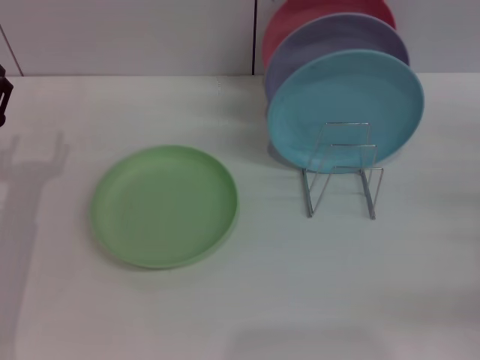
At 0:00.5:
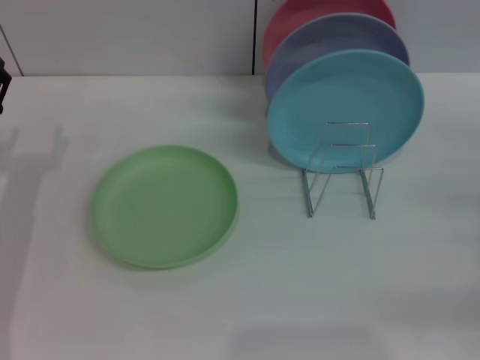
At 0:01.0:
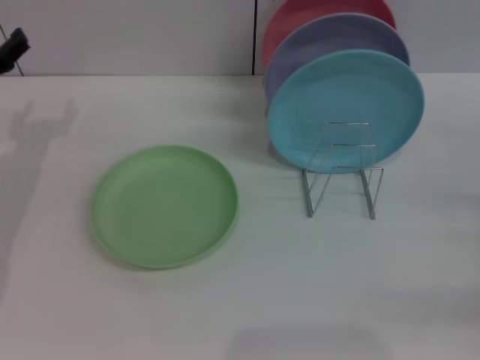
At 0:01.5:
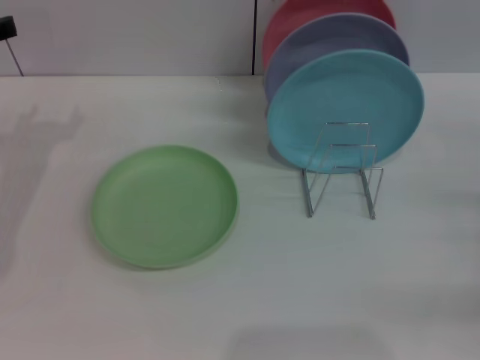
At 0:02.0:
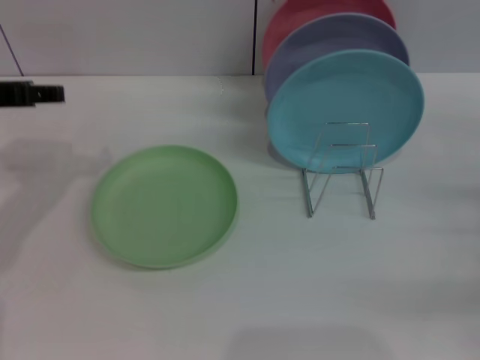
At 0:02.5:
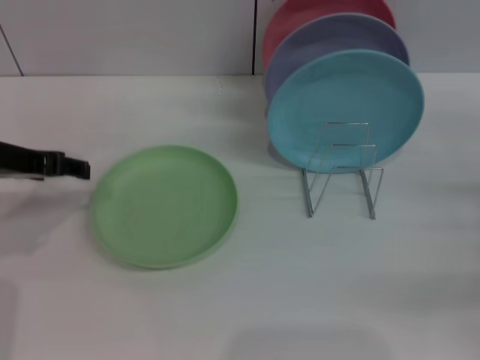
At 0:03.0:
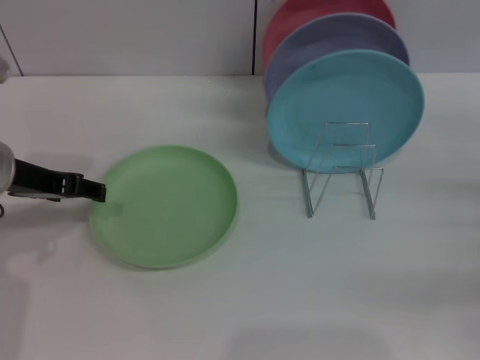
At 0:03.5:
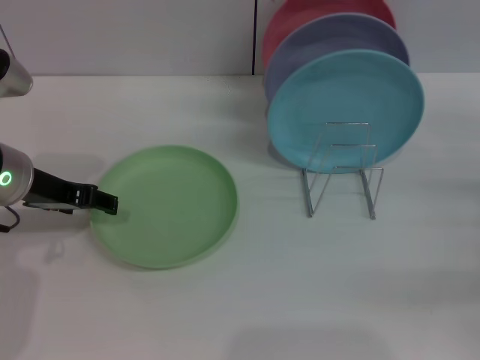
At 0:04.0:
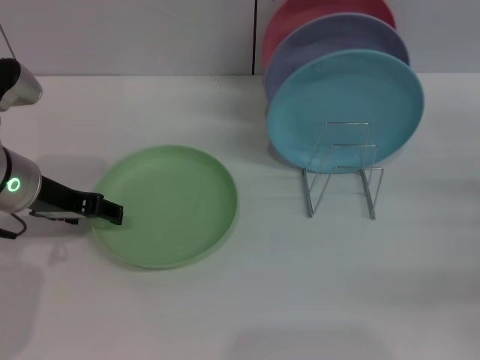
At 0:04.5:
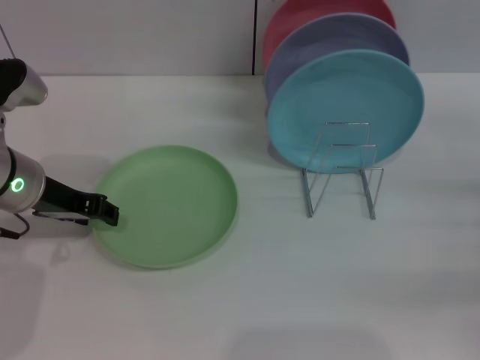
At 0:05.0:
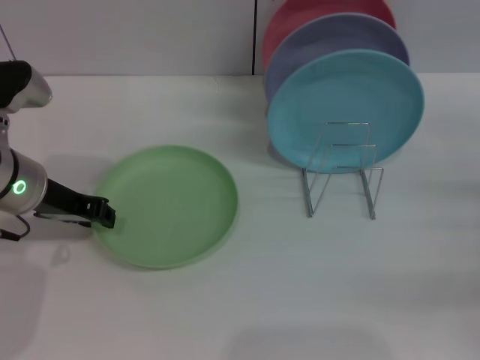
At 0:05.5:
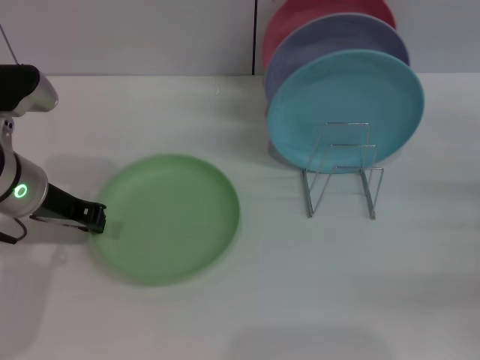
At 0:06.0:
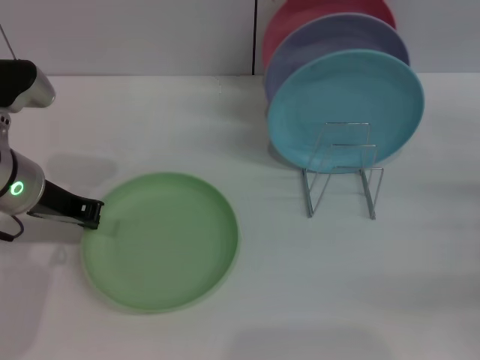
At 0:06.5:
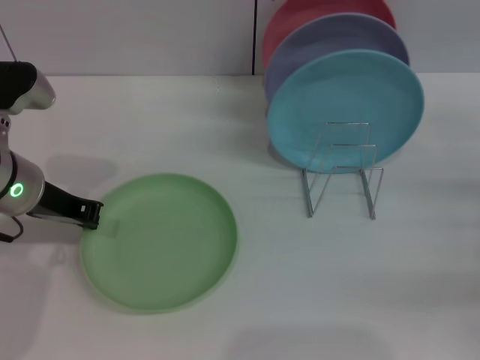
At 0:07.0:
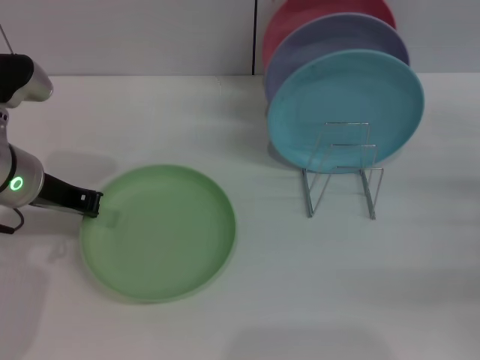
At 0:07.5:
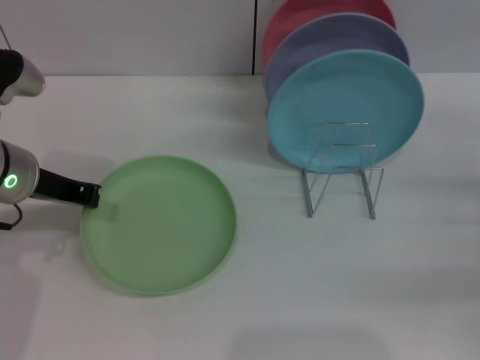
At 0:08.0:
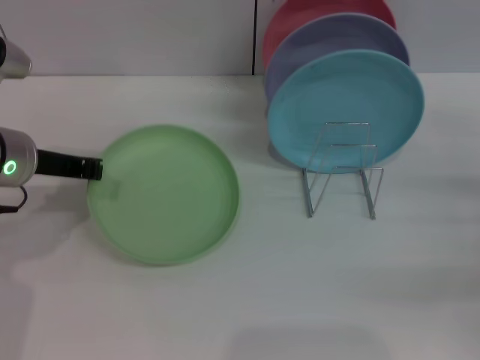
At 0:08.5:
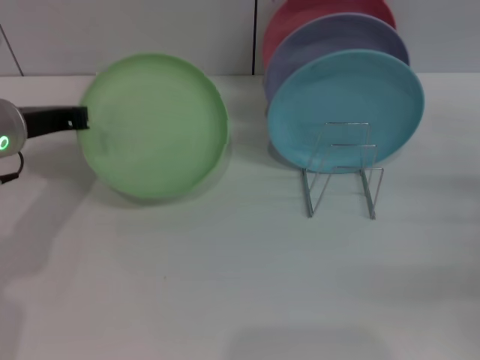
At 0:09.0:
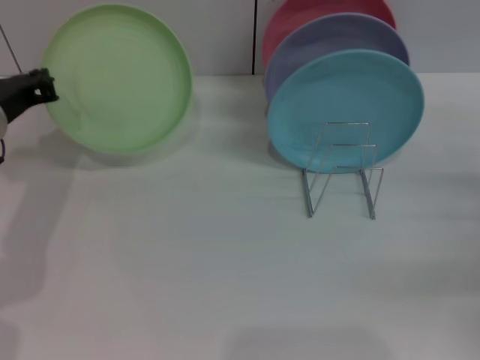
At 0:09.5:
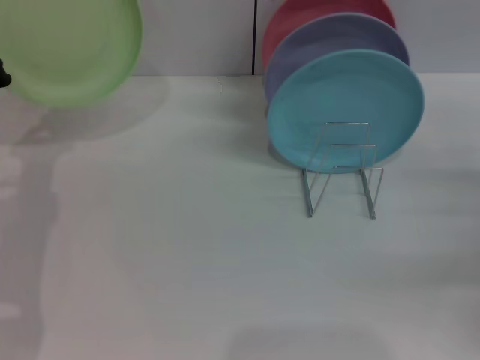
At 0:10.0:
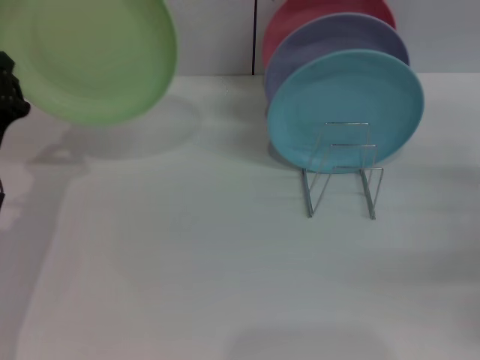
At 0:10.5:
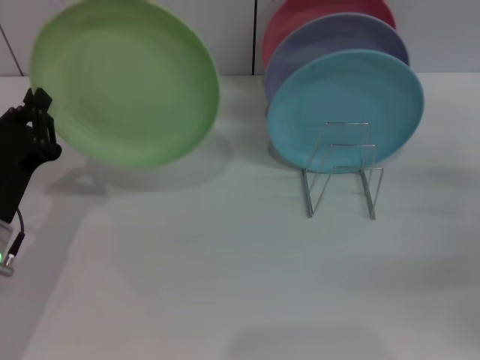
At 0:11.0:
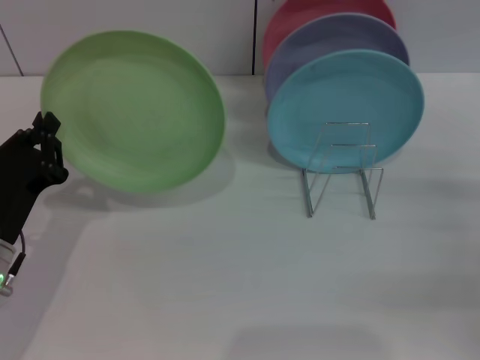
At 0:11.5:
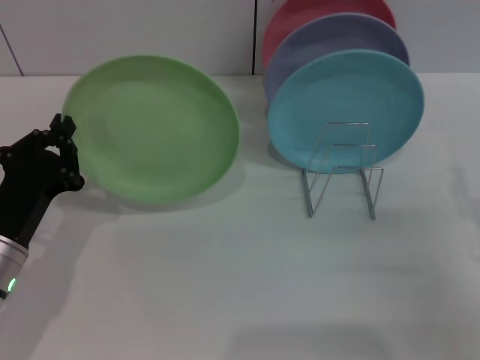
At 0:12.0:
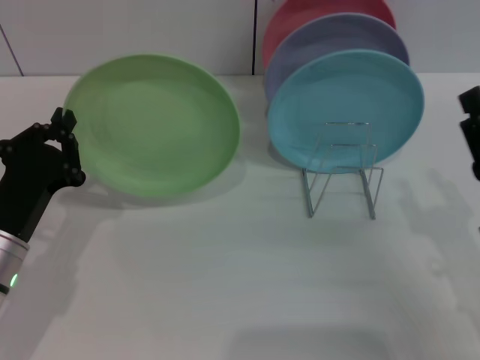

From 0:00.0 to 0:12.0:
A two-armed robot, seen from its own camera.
Task of the whole recording: Grip the plate with one hand, pass it to the other, then set it on the shelf.
Step, from 0:00.0 to 0:08.5: Pick up the plate with the left gripper.
From 0:00.0 to 0:02.0: The left gripper goes approximately 15 cm upward.
From 0:02.0 to 0:04.0: The left gripper moves downward, about 10 cm.
From 0:04.0 to 0:06.0: The left gripper closes.
From 0:06.0 to 0:08.0: The grippers make only small movements.
From 0:08.0 to 0:10.0: The left gripper is displaced downward and backward by some 10 cm.
From 0:10.0 to 0:12.0: The left gripper shifts by approximately 5 cm, while the right gripper shifts some 10 cm to the left and backward.

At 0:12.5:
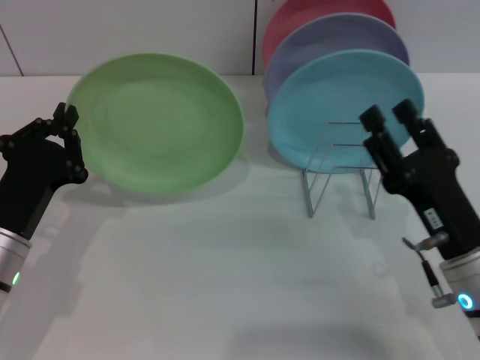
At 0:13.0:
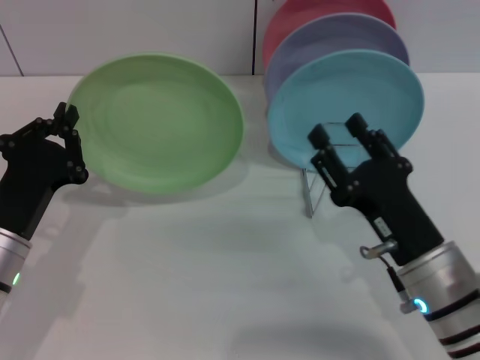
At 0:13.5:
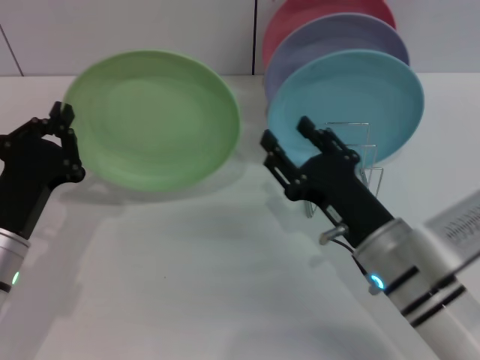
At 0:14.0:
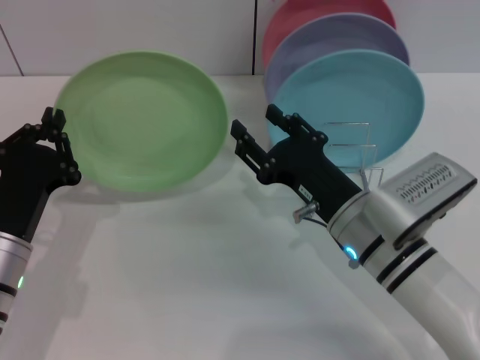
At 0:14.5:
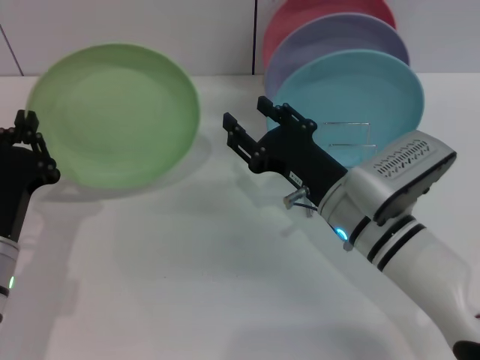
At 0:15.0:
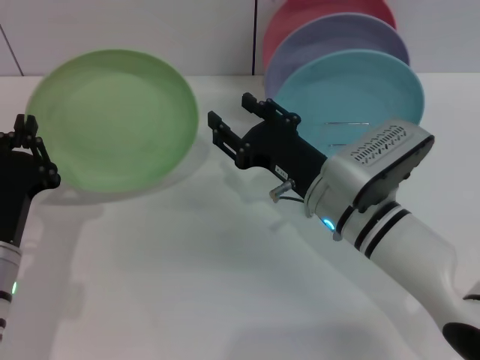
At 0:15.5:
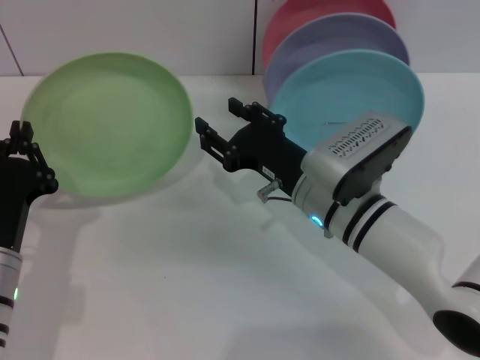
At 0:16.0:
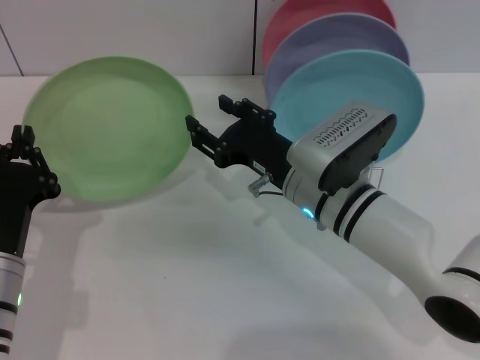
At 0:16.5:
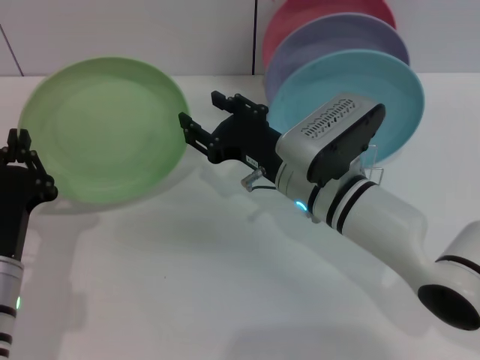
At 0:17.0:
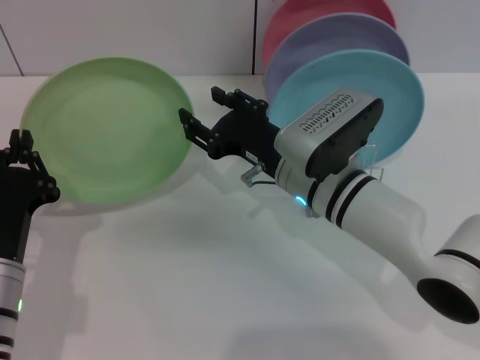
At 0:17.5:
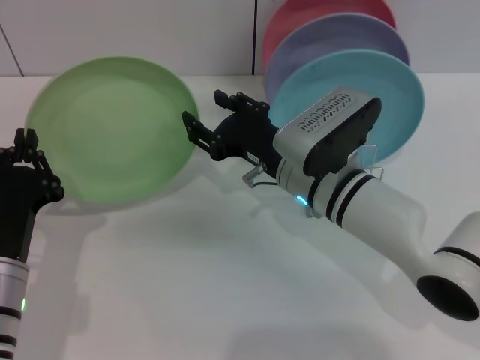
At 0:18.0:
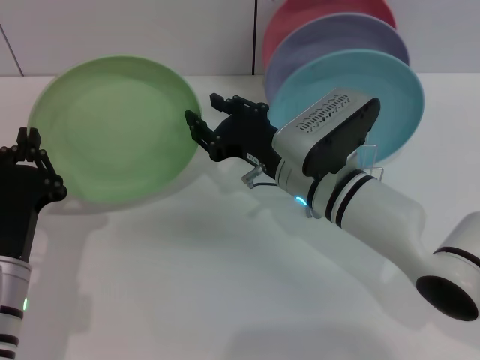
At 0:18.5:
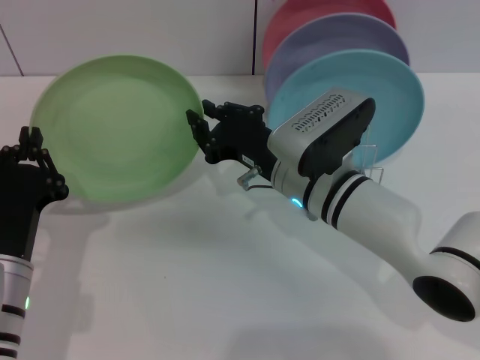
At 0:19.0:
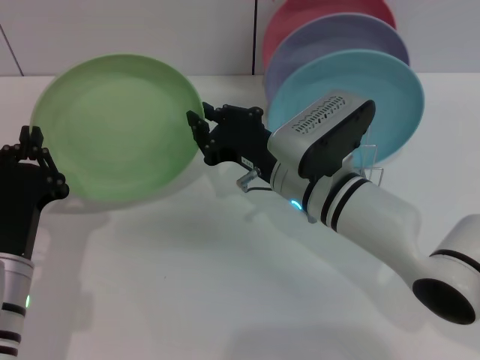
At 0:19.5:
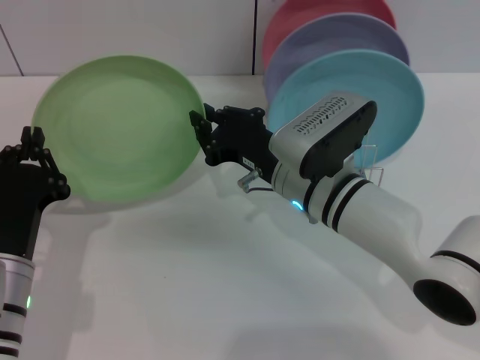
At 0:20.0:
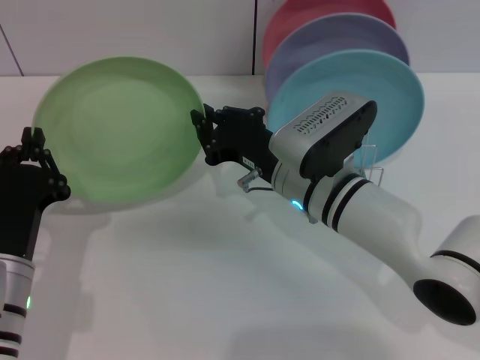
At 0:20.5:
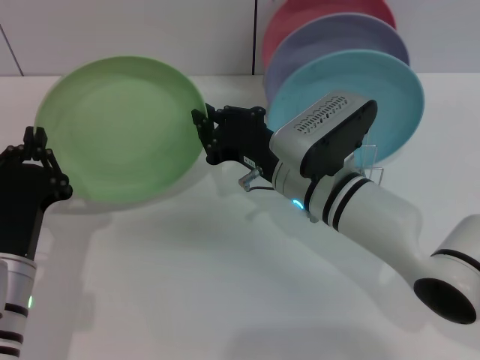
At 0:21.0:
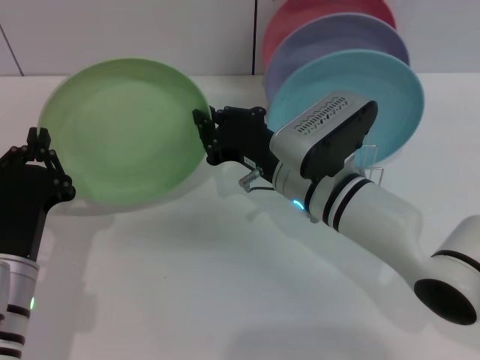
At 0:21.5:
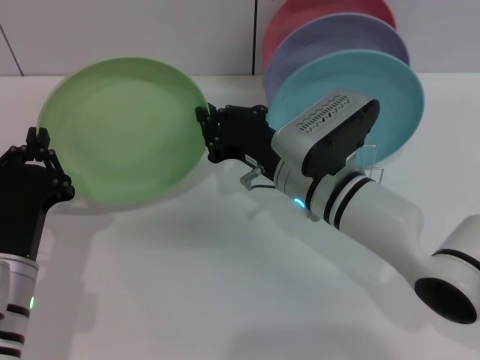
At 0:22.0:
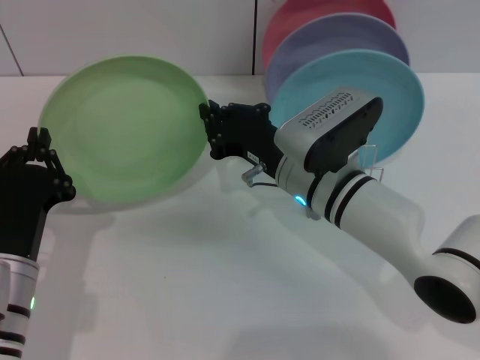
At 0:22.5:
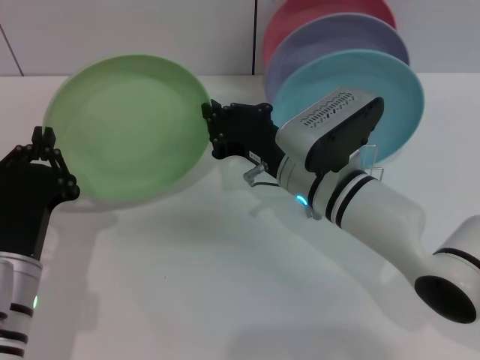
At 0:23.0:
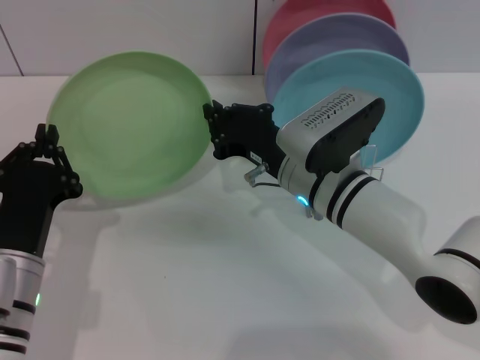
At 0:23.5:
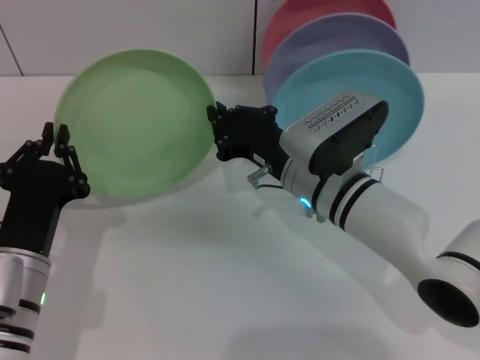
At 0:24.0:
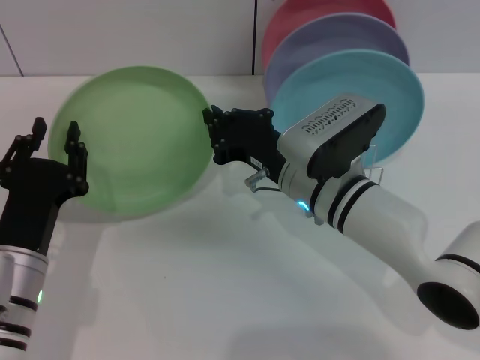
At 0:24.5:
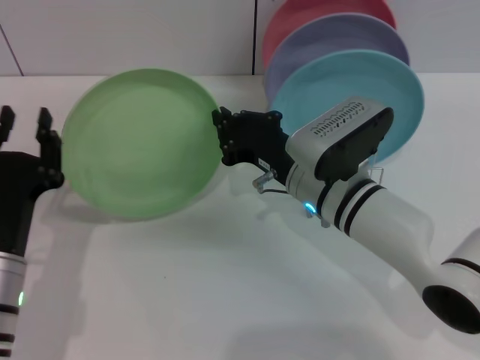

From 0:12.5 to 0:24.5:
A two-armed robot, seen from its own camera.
Task of the whole recording: Grip the plate with one hand, pass it to the other, then set it on the shelf.
Step, from 0:12.5 to 0:24.5: Pass the plate from the left gripper to the right gripper.
From 0:12.5 to 0:14.5: The right gripper is displaced to the left and forward by some 10 cm.
From 0:14.5 to 0:16.5: The right gripper moves approximately 5 cm.
From 0:16.5 to 0:18.5: The right gripper closes up.
From 0:18.5 to 0:22.5: The two grippers keep their place.
From 0:22.5 to 0:24.5: The left gripper opens.

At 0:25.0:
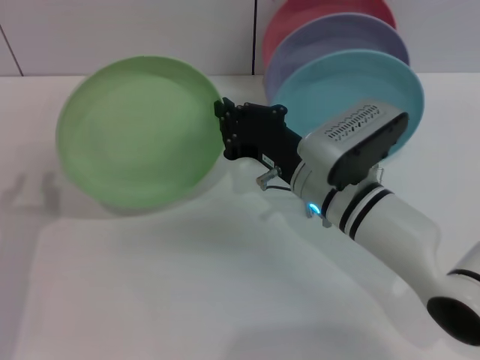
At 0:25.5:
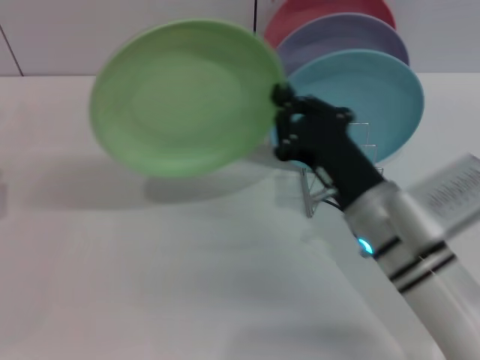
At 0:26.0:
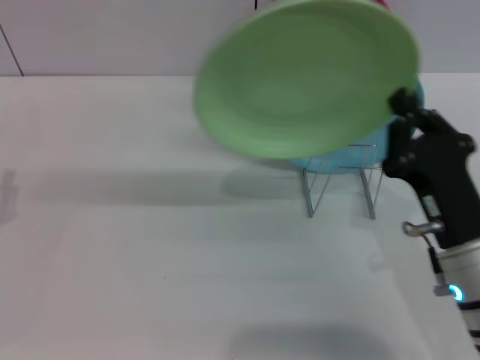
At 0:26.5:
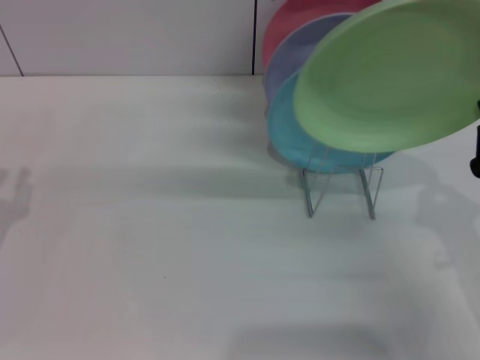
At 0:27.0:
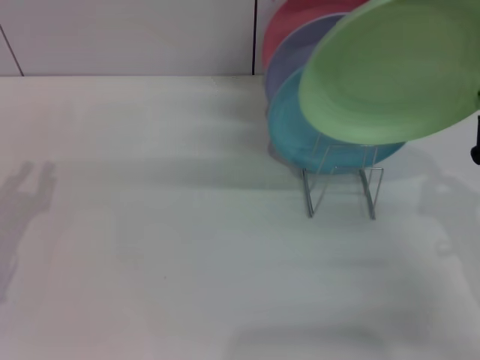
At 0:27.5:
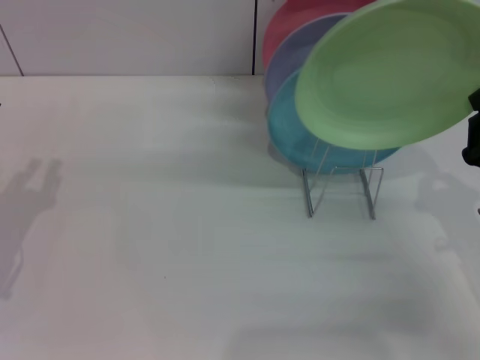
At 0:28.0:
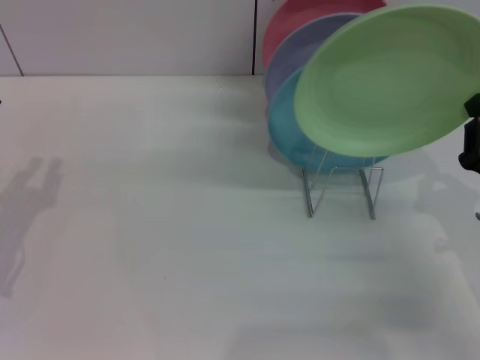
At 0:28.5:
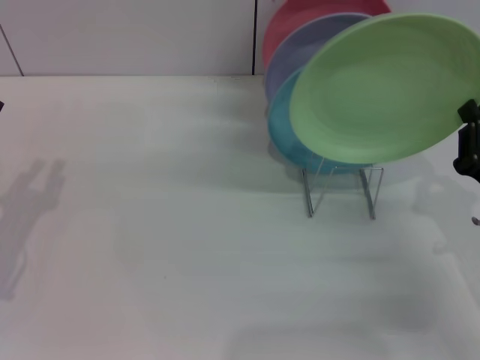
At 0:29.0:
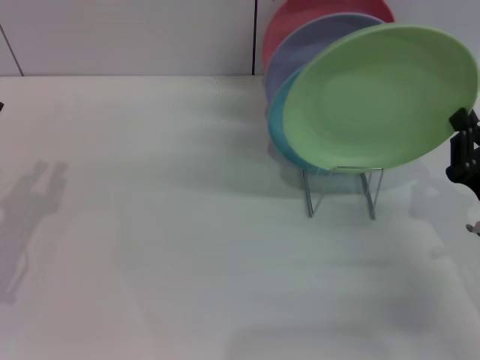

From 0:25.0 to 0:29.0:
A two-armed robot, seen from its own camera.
Task of the whole recording: Grip the plate with one hand, pass it to the other, then set it on the shelf.
From 0:25.0 to 0:27.0: The left gripper changes place by about 5 cm. Meanwhile the right gripper heads to the right and backward, covering about 20 cm.
From 0:27.0 to 0:29.0: The grippers move only a little.
